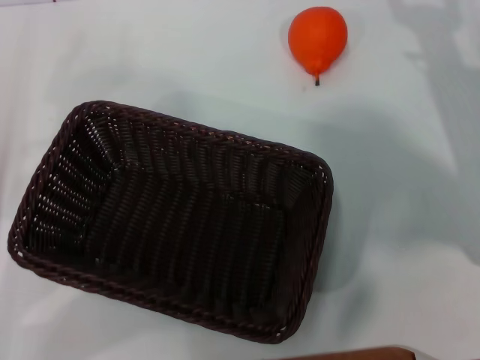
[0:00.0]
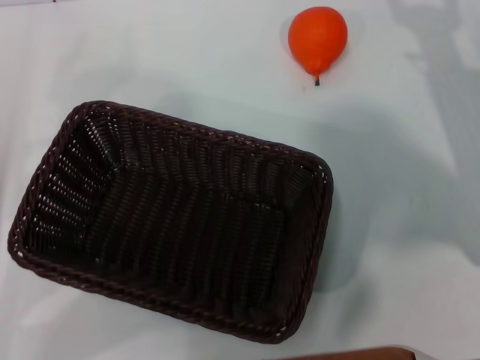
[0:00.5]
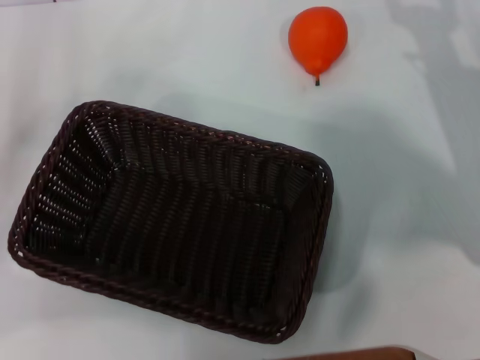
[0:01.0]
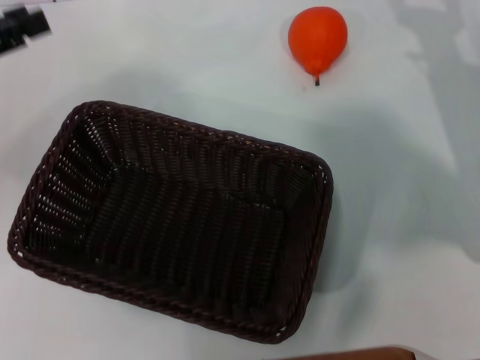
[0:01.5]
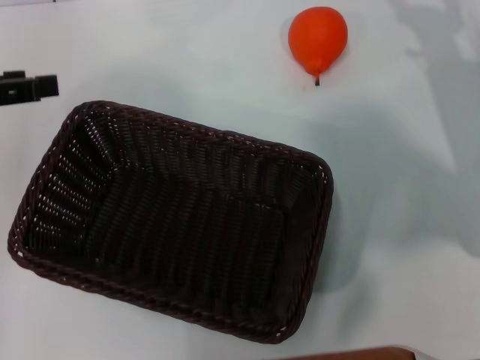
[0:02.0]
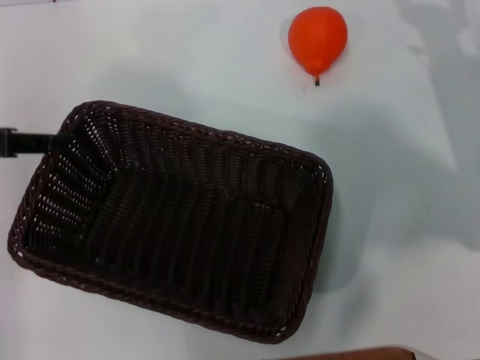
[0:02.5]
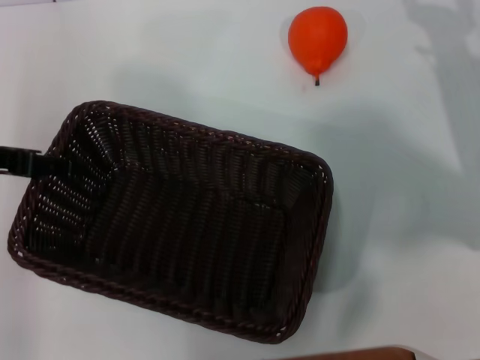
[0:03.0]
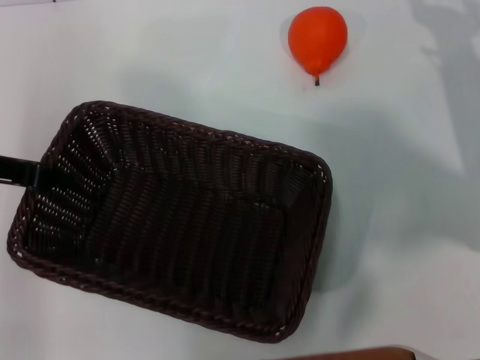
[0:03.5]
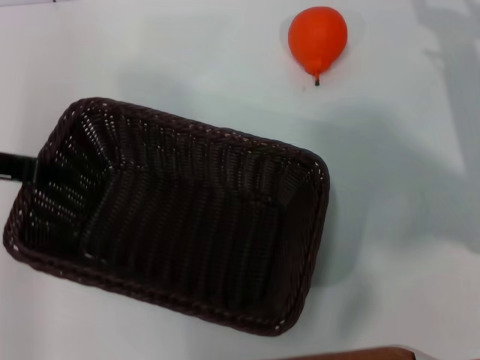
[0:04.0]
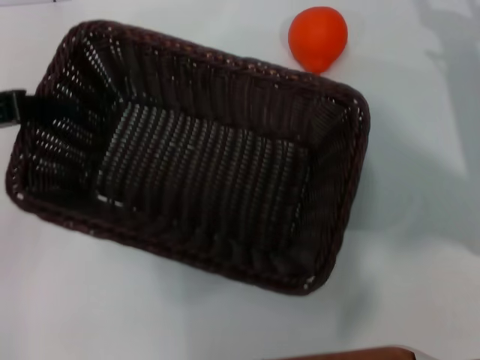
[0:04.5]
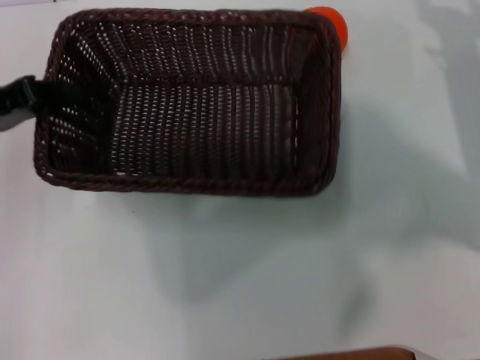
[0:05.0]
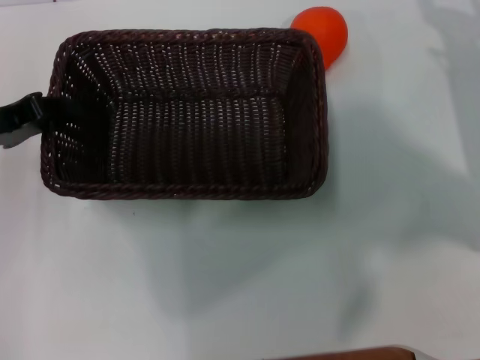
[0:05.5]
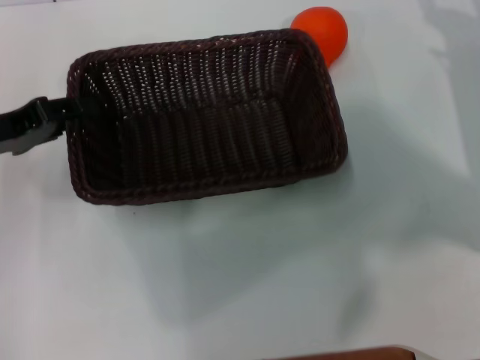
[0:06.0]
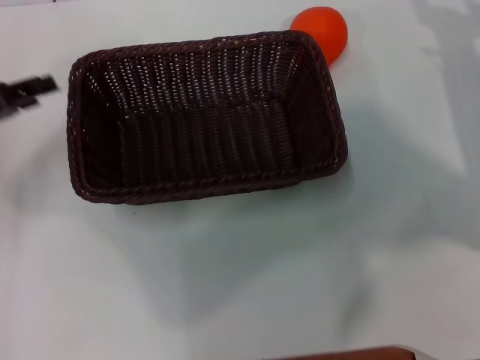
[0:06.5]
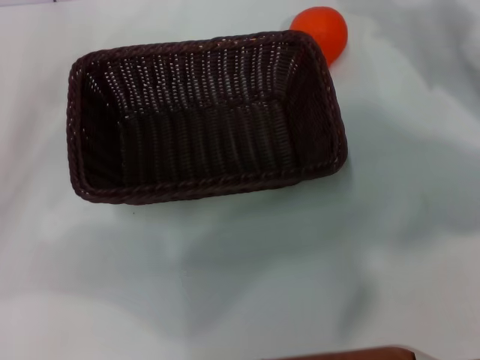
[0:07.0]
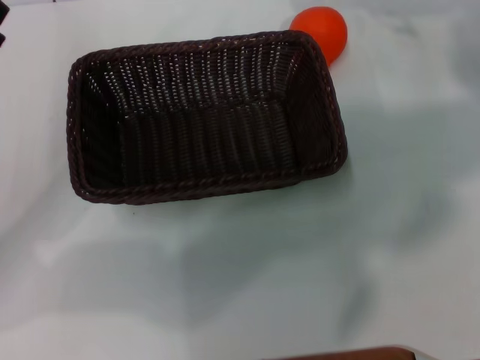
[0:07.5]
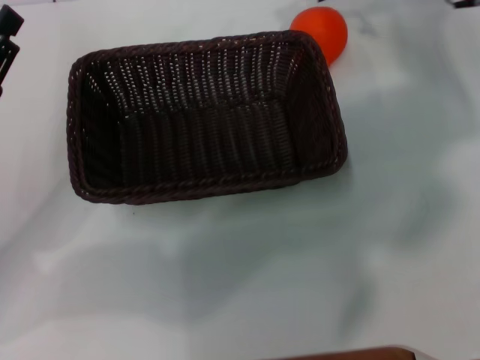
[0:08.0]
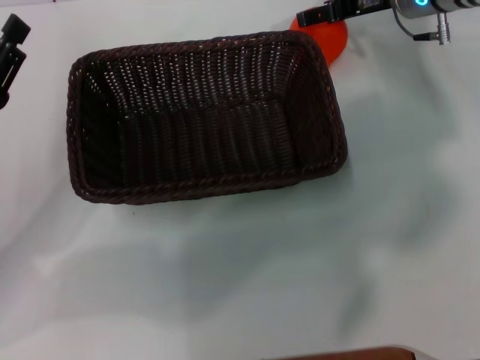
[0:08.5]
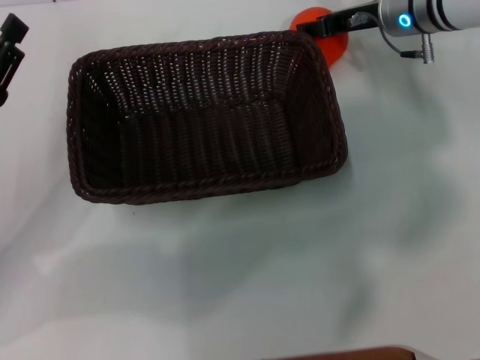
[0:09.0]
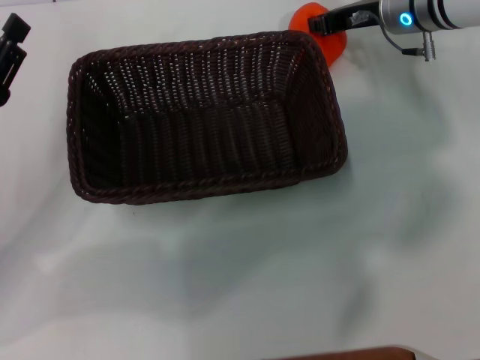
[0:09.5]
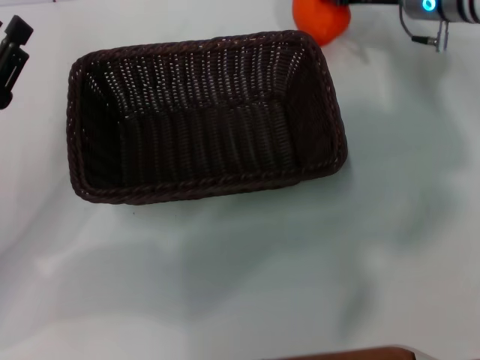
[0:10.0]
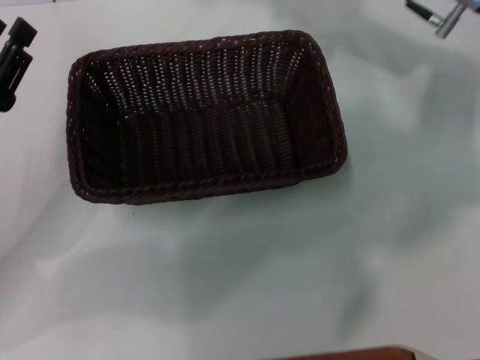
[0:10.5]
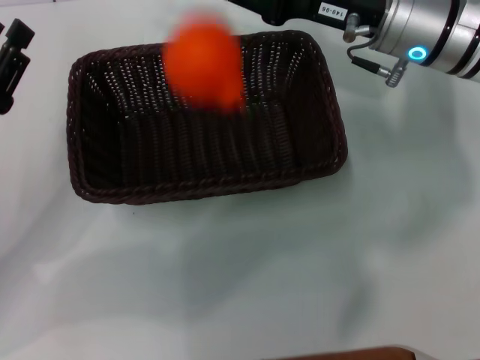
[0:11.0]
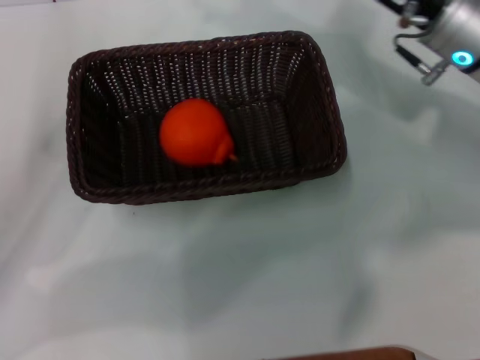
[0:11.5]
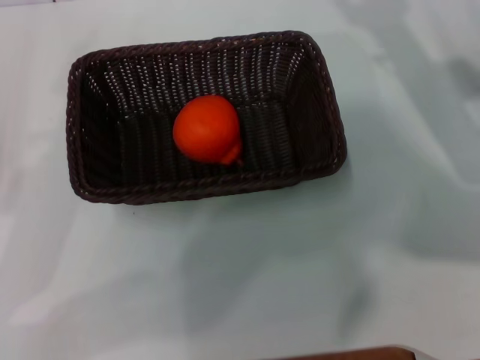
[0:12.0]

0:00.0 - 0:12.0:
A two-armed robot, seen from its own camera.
Task of the whole recording: the left gripper pick up the black basket and place it horizontally in the middle of the table, the right gripper pick up the orange and place it into the black basket.
Step, 0:00.0 - 0:04.0: Pick up the dark basket with the left gripper.
Step, 0:04.5 - 0:06.0: Place the dark basket in the center of view with the left gripper.
Step, 0:06.5 - 0:10.0: Pick up the orange with the right gripper.
Step, 0:10.5 - 0:11.0: Place the orange into the dark basket with the right gripper.
0:00.0 - 0:02.0: The left gripper goes approximately 15 cm upward and forward.
0:02.0 - 0:04.0: The left gripper moves roughly 5 cm, and closes its fingers.
0:04.0 - 0:06.0: The left gripper travels downward by roughly 5 cm.
0:06.0 - 0:08.0: The left gripper changes place by roughly 5 cm, and opens its fingers; the right gripper goes roughly 20 cm forward, upward and to the left.
0:08.0 - 0:10.0: The right gripper goes some 5 cm downward, and closes.
0:10.0 - 0:12.0: The right gripper is displaced backward and to the right by roughly 15 cm, and opens up; the left gripper shifts by roughly 5 cm.

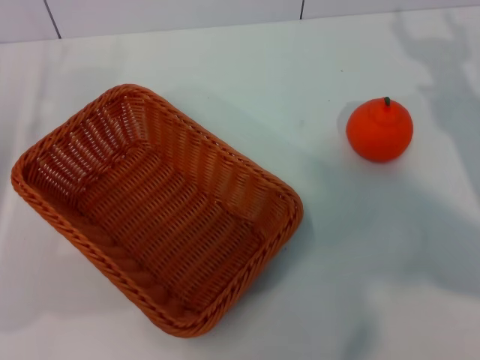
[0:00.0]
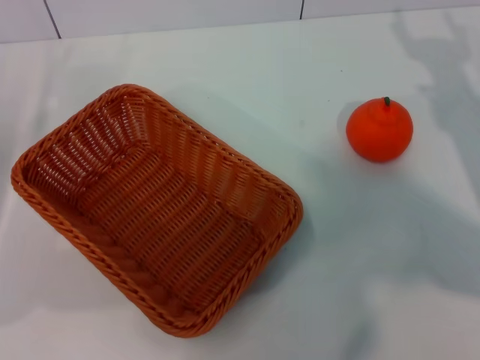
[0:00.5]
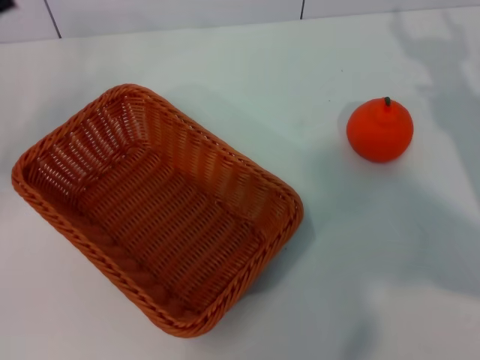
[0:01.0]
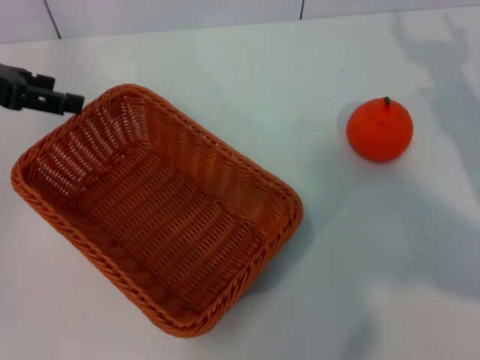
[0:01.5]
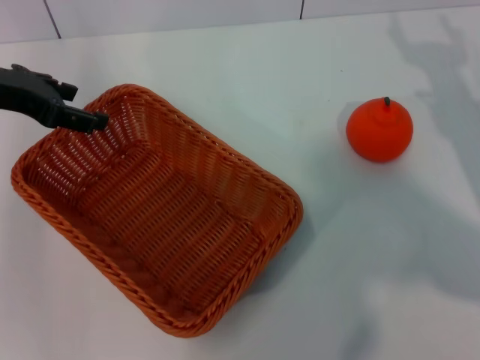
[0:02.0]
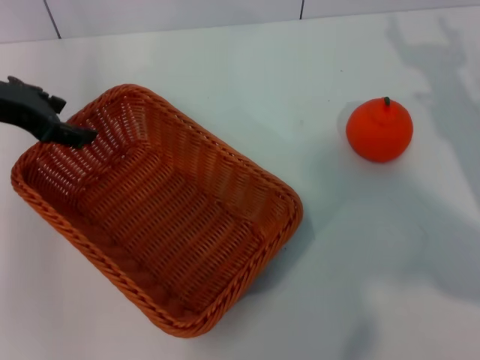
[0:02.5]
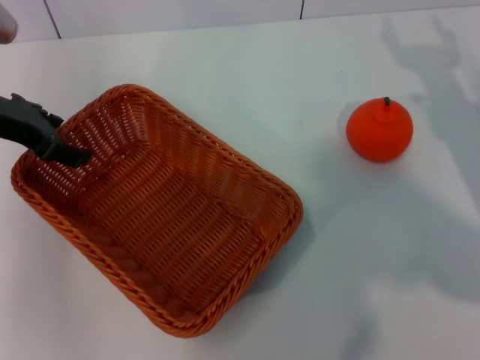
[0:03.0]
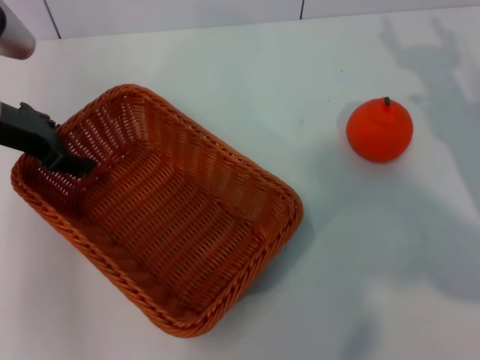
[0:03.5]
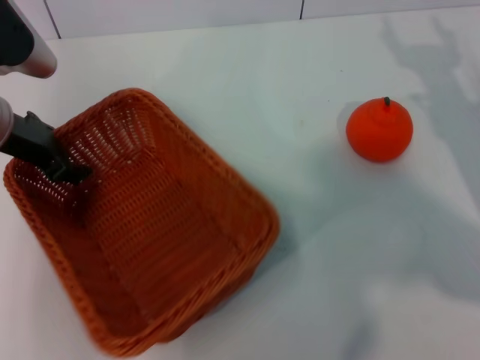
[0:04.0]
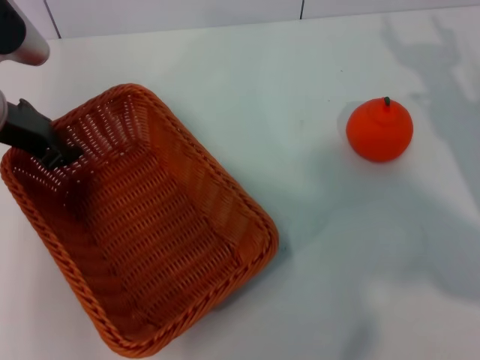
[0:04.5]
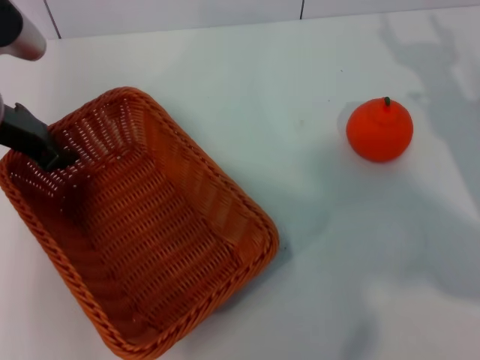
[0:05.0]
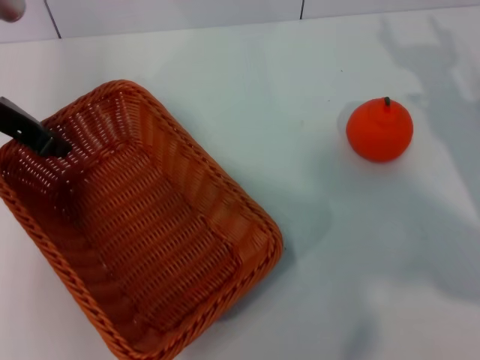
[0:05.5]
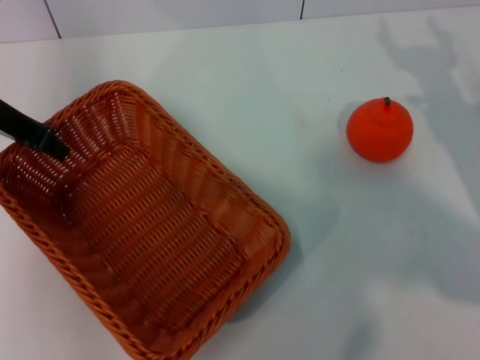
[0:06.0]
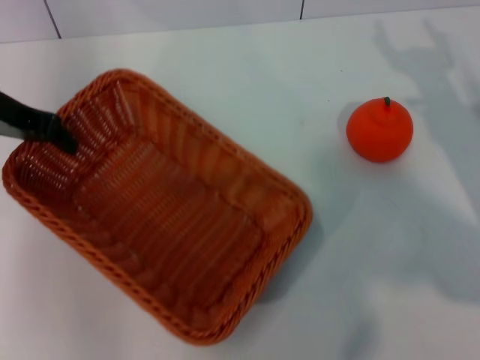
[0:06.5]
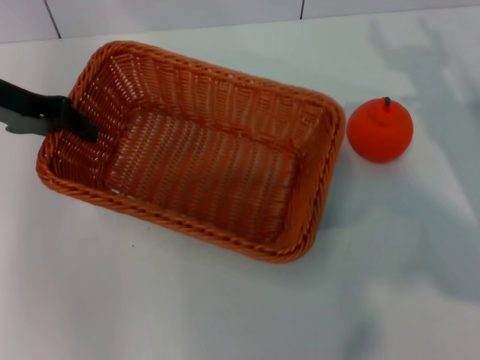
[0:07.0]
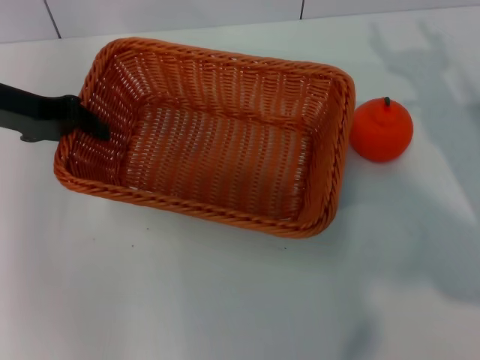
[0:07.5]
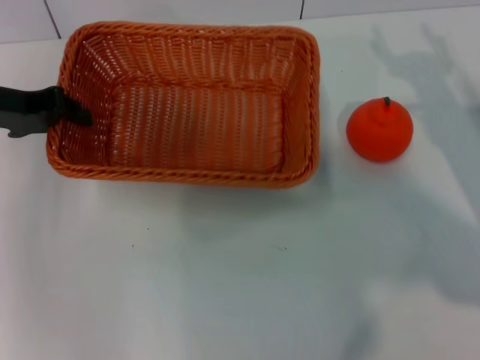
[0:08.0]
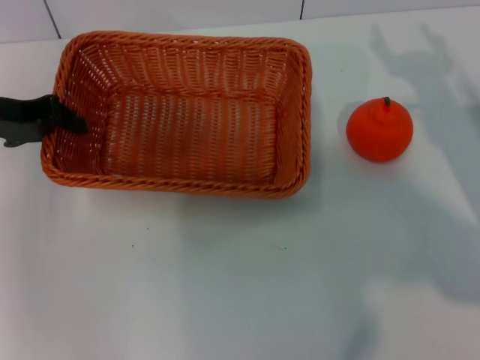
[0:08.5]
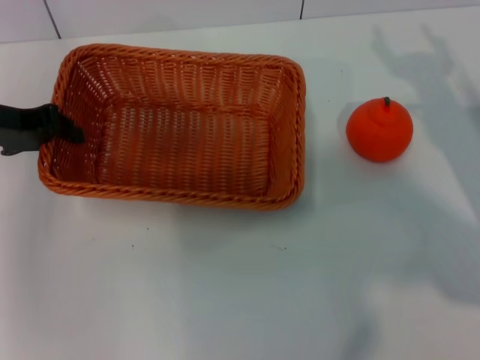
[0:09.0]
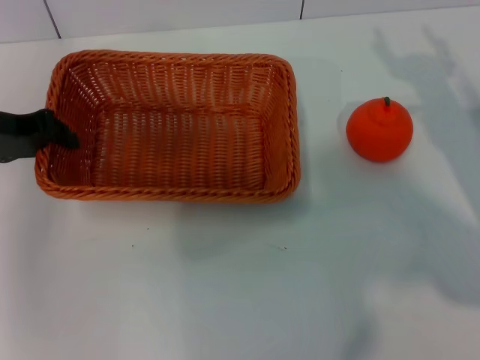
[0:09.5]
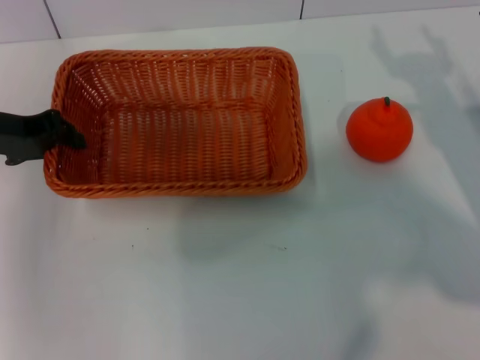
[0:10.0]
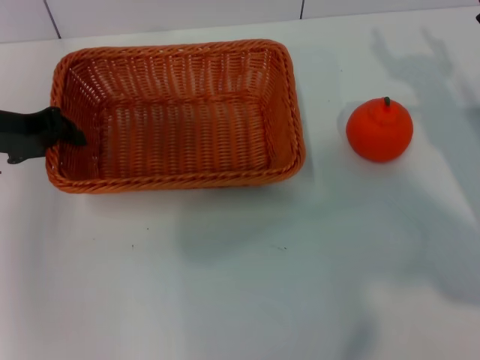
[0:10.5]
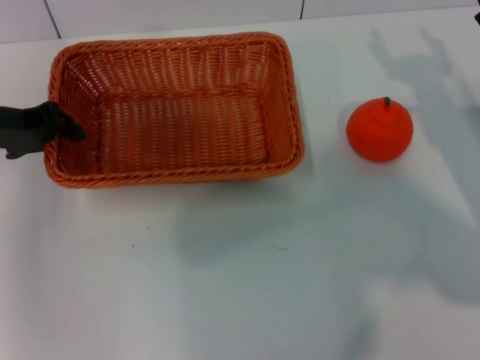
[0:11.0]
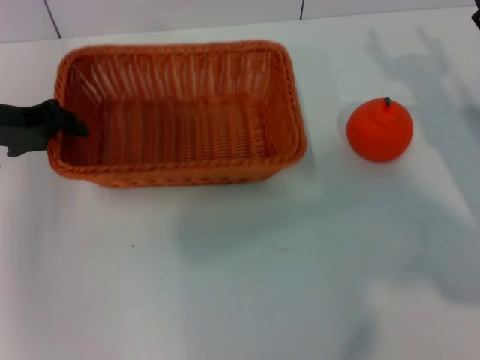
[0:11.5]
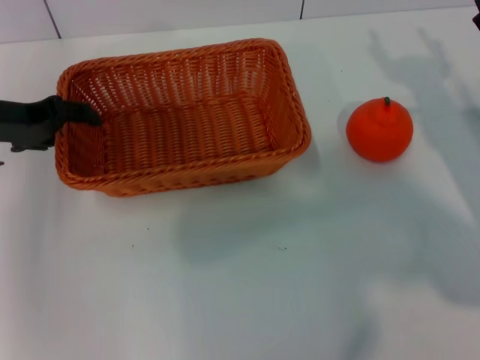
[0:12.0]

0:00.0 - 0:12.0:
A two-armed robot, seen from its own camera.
Task of the whole recording: the left gripper pick up the yellow basket and place it horizontally in the middle of the table, the right gripper pick up the orange and place it into the yellow basket.
Step, 0:00.0 - 0:06.0: Pick up the light basket with the left gripper.
0:00.0 - 0:02.0: The left gripper shifts some 15 cm upward, forward and to the right.
0:02.0 - 0:04.0: The left gripper changes place by about 5 cm.
0:04.0 - 0:06.0: The left gripper closes its fingers.
0:08.0 - 0:10.0: The grippers move only a little.
0:10.0 - 0:12.0: The two grippers keep their place.

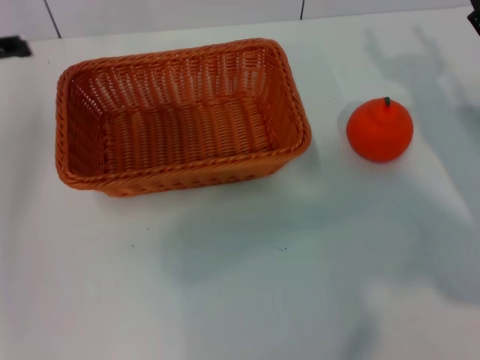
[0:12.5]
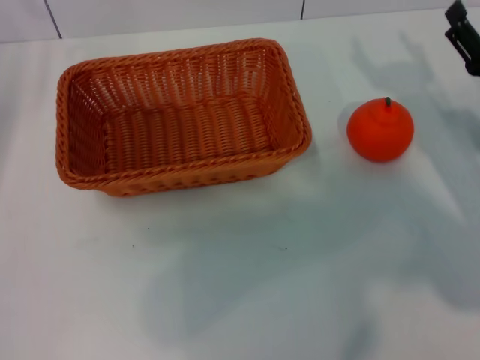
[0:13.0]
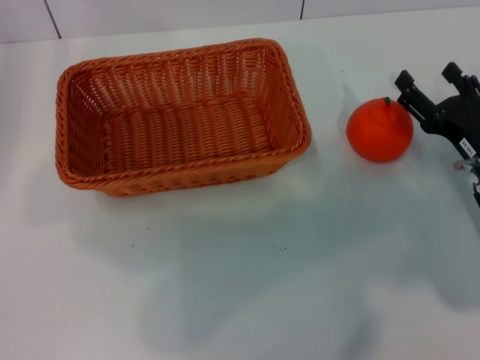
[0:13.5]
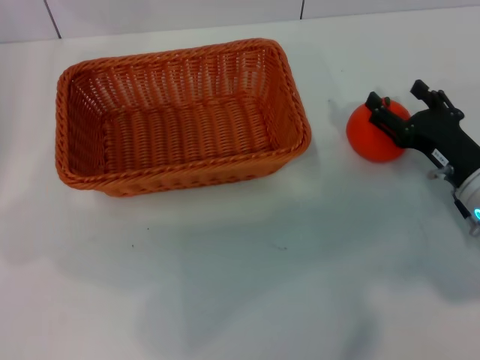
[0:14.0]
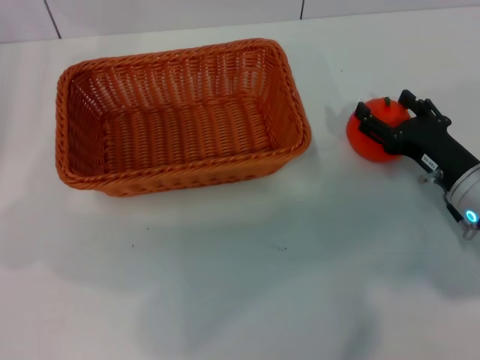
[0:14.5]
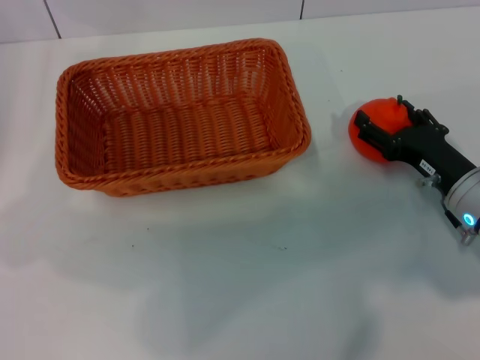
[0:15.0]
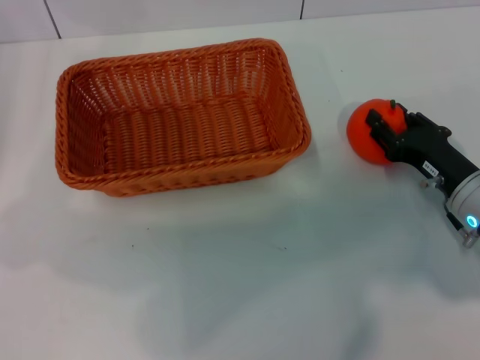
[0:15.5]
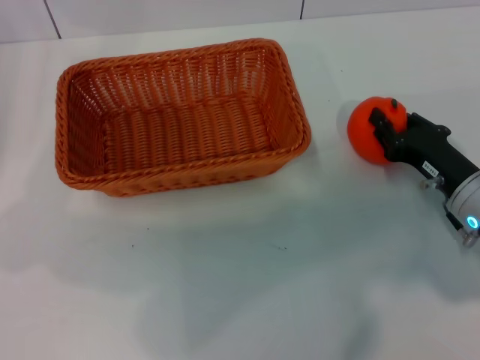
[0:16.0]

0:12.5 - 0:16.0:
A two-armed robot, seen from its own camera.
Task of the whole recording: the left gripper pick up the yellow basket and place it horizontally in the middle of the table, the right gripper pick up the orange and place it into the yellow basket.
0:12.5 - 0:14.5: The left gripper goes roughly 5 cm backward, while the right gripper is displaced downward by some 5 cm.
0:14.5 - 0:16.0: The right gripper closes up.
